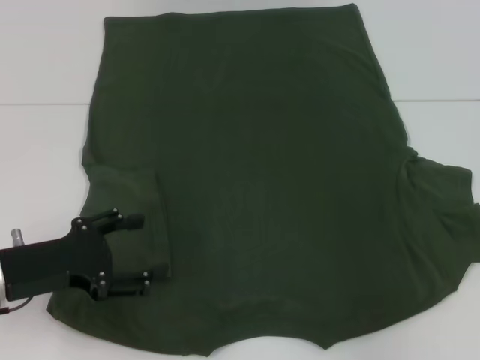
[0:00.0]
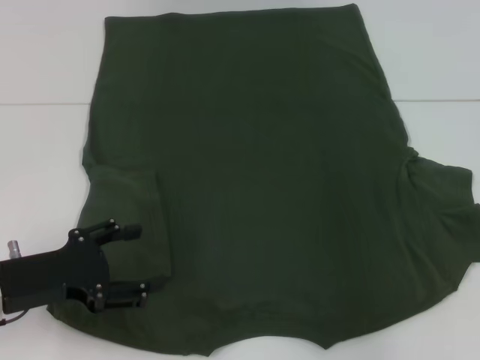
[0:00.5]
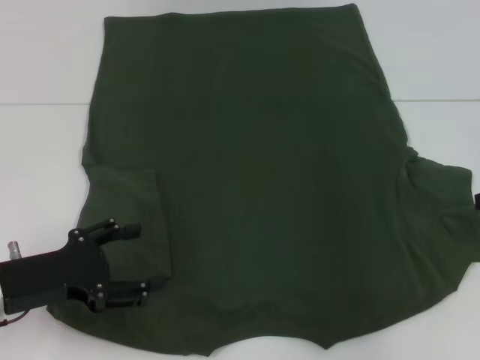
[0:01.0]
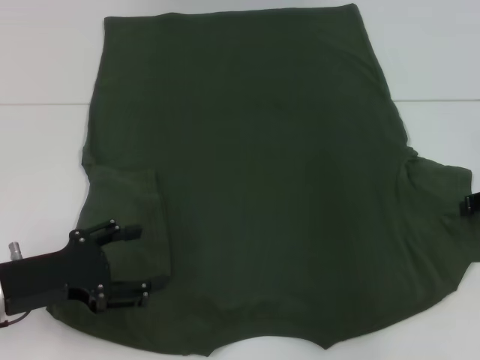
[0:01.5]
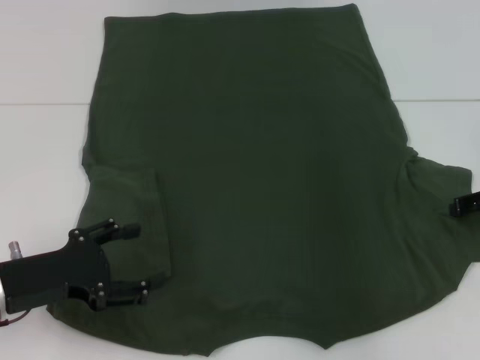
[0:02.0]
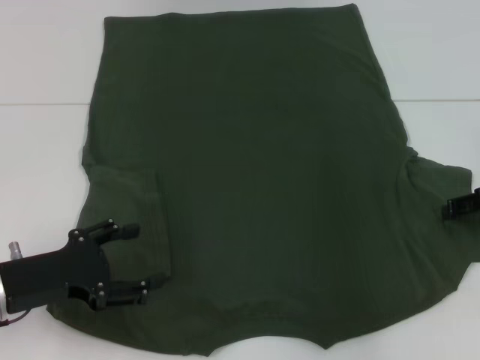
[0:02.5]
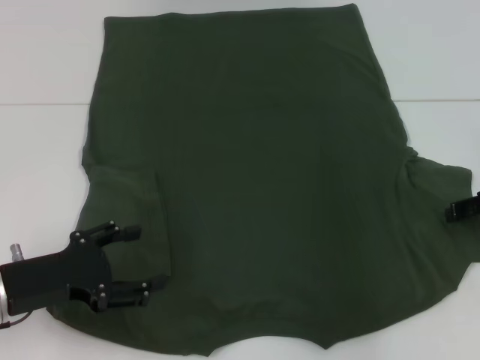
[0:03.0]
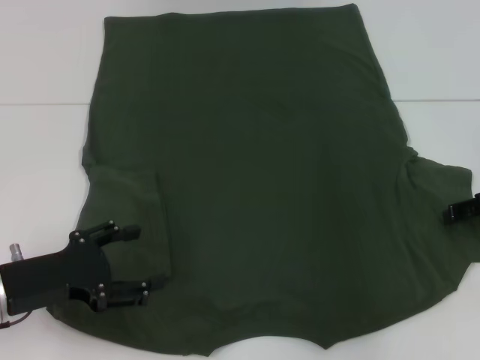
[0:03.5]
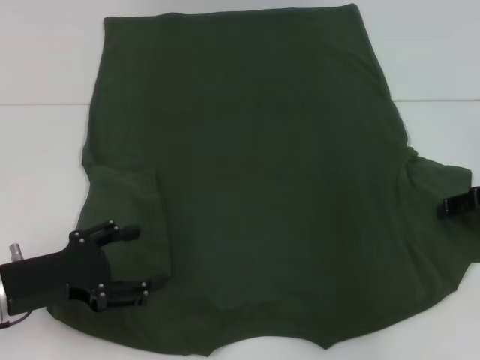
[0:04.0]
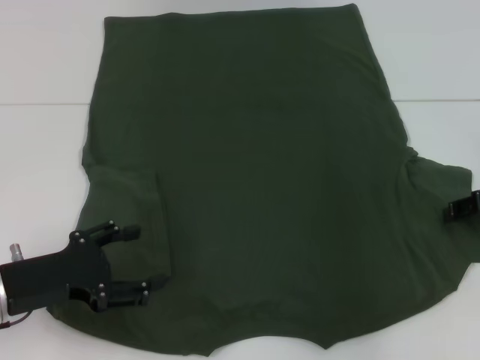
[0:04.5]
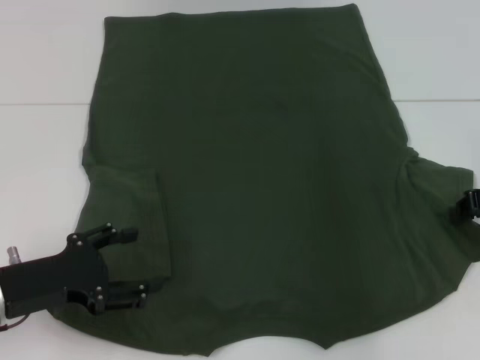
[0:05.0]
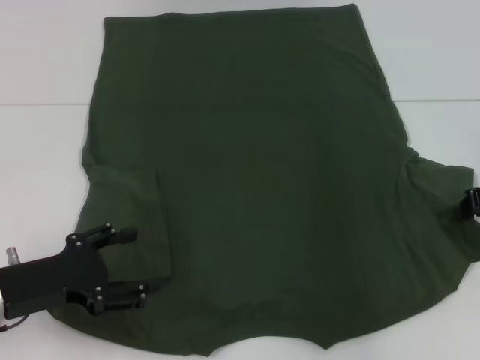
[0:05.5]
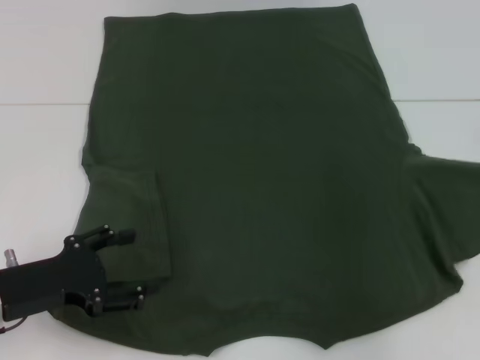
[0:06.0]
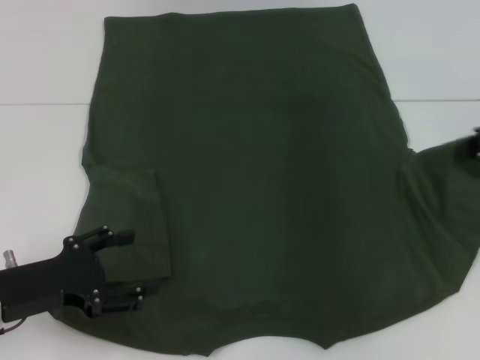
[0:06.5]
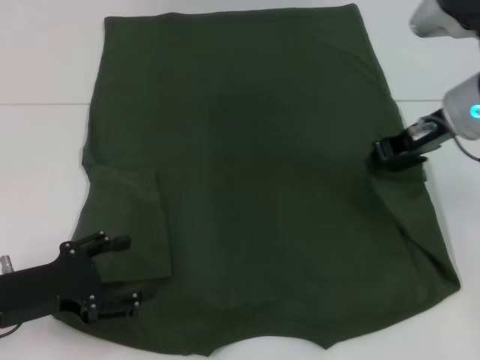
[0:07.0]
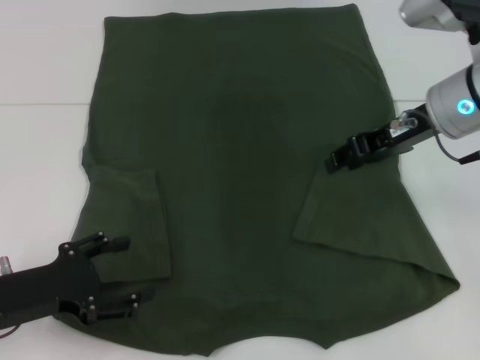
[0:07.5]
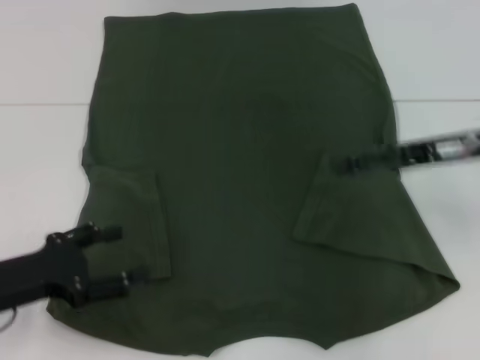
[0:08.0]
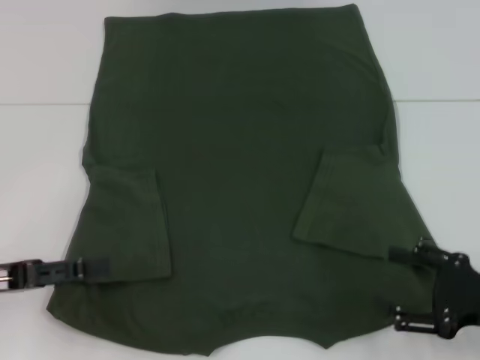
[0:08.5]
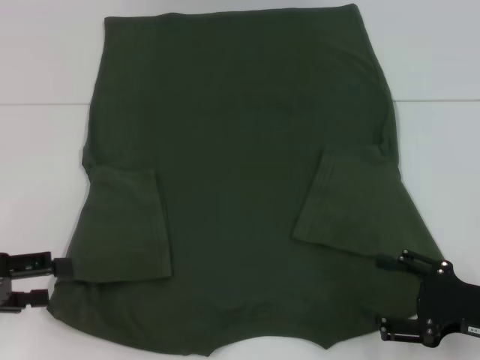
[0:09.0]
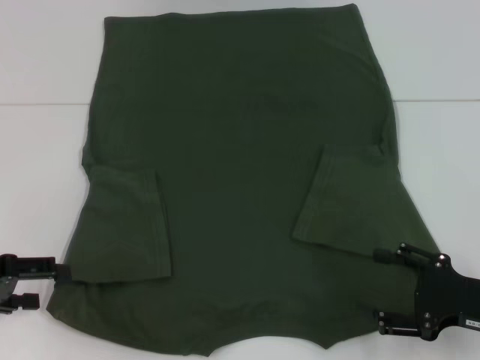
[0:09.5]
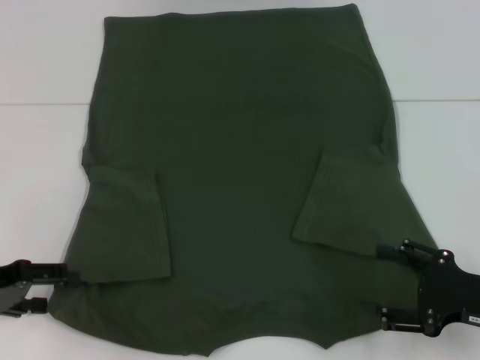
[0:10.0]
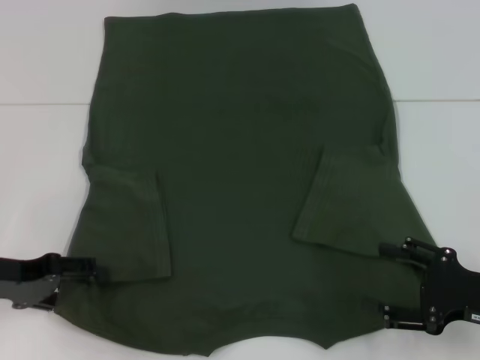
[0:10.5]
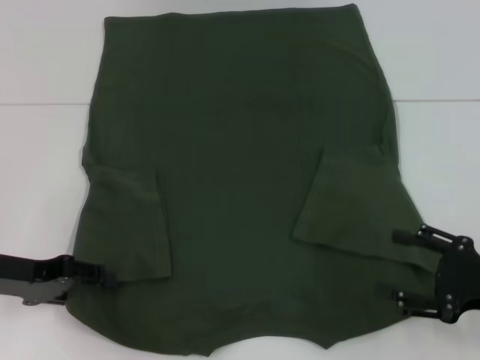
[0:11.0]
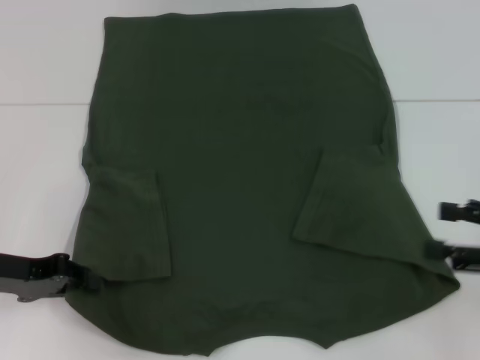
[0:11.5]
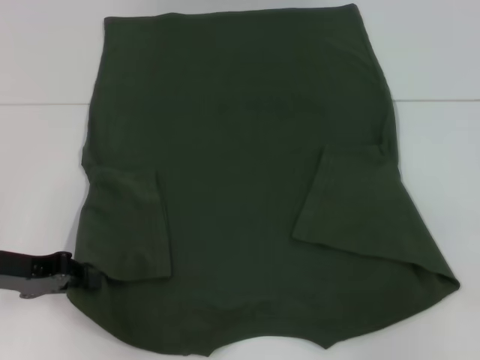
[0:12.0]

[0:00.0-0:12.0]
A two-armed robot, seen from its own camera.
Step, 0:00.0 to 0:07.5: Fold the bottom right sleeve with your right hand.
Step, 0:08.0 to 0:11.5: Grab the bottom left corner with your left hand.
0:04.0 to 0:06.0: The right gripper closes its fingers.
0:06.0 to 0:08.0: The right gripper moves to the left, approximately 10 cm, and opens.
0:08.0 to 0:10.0: The right gripper moves backward and downward, some 15 cm, while the left gripper goes some 5 cm to the left.
0:10.0 to 0:12.0: The right gripper shifts about 15 cm upward, to the right and forward; the left gripper closes its fingers.

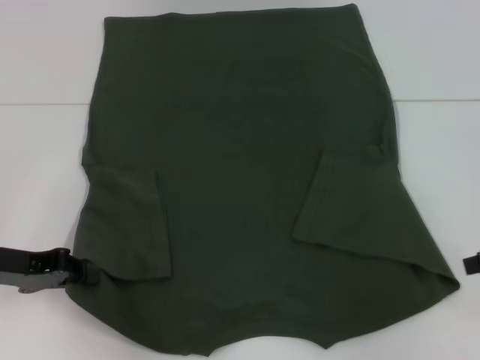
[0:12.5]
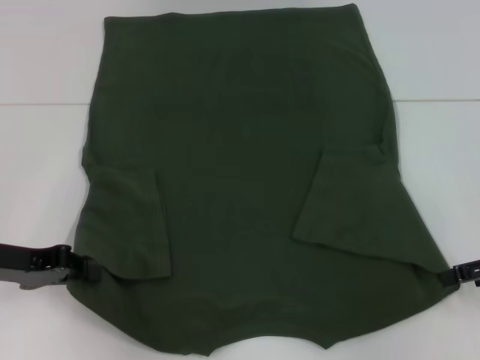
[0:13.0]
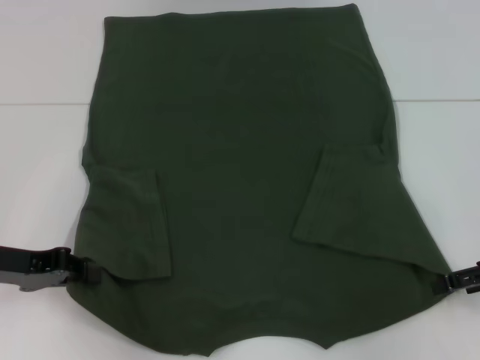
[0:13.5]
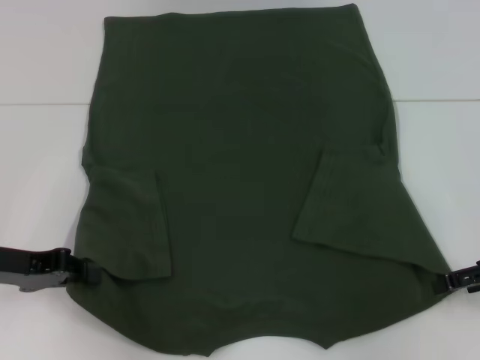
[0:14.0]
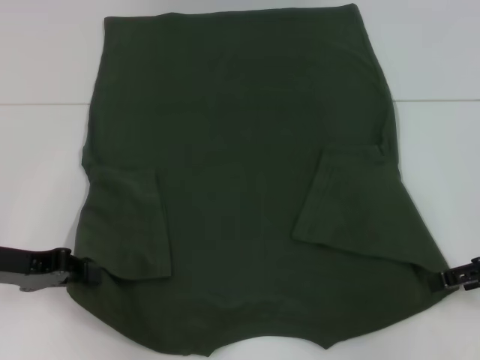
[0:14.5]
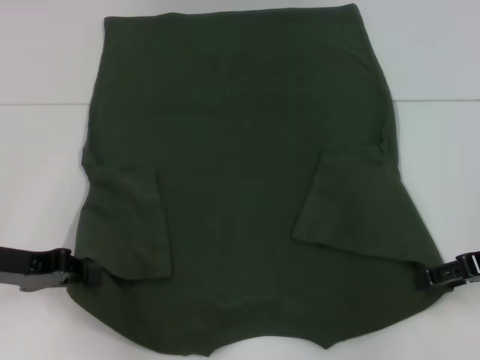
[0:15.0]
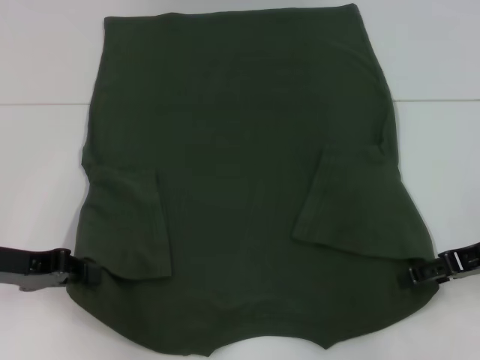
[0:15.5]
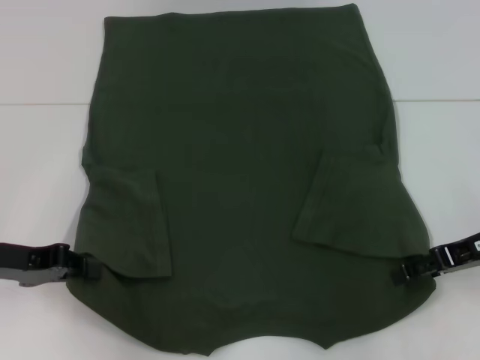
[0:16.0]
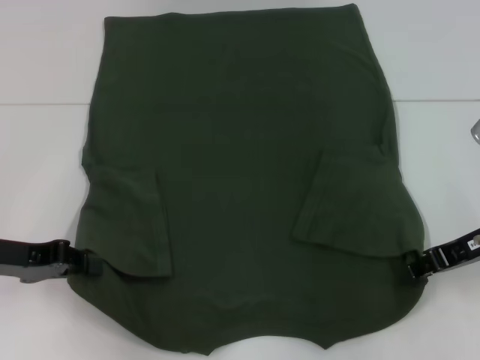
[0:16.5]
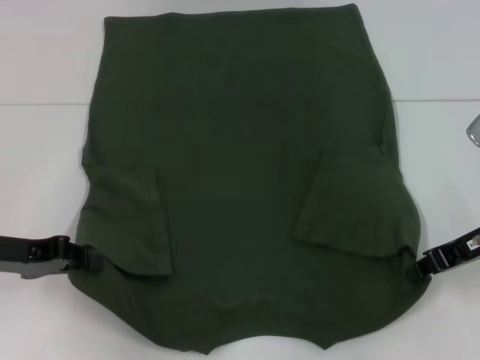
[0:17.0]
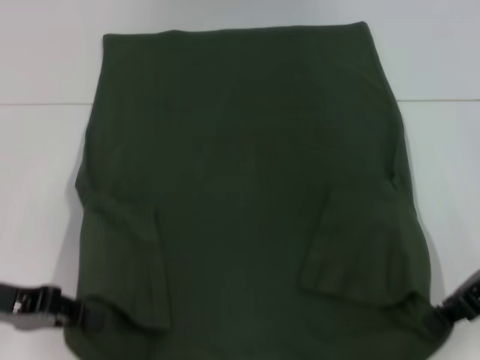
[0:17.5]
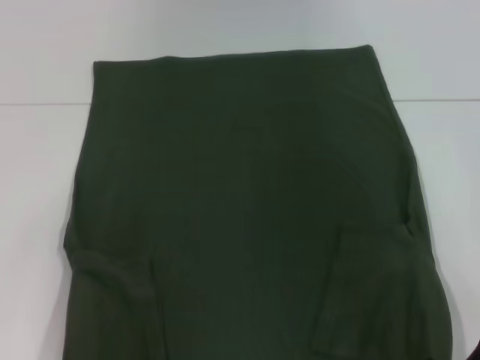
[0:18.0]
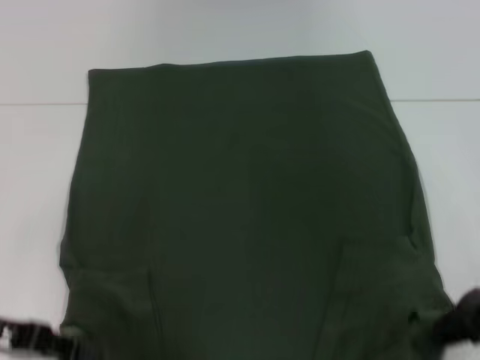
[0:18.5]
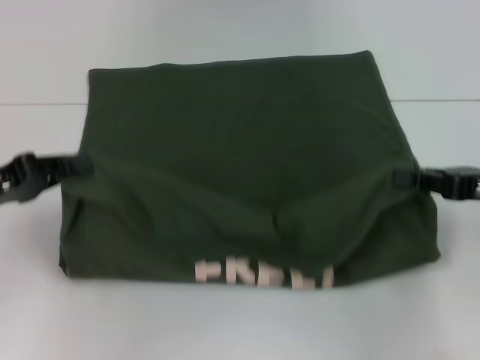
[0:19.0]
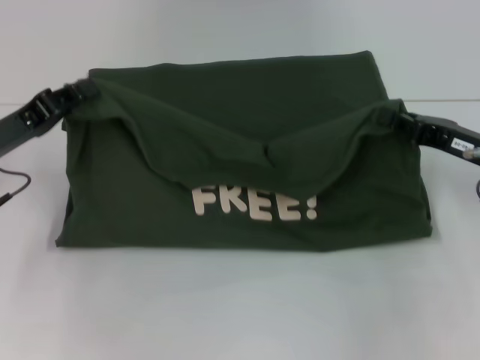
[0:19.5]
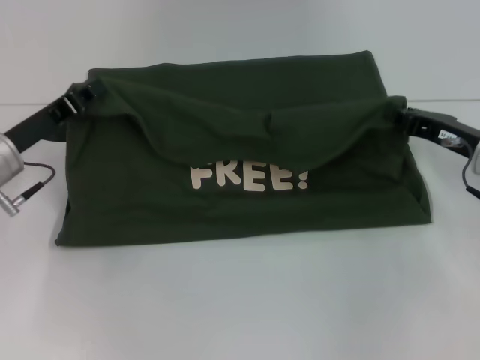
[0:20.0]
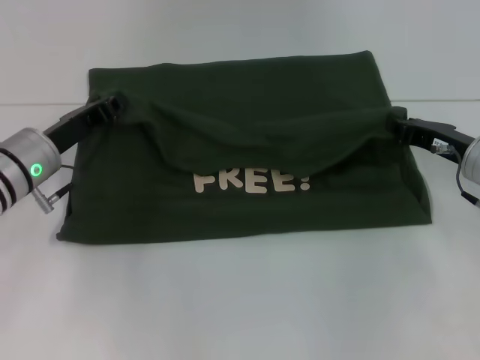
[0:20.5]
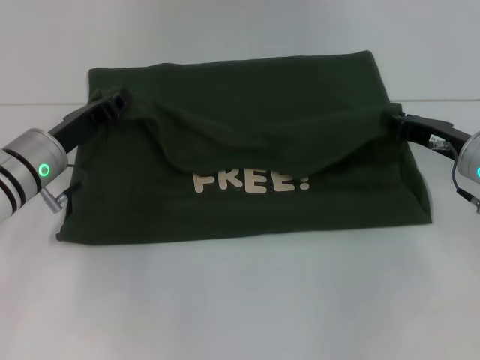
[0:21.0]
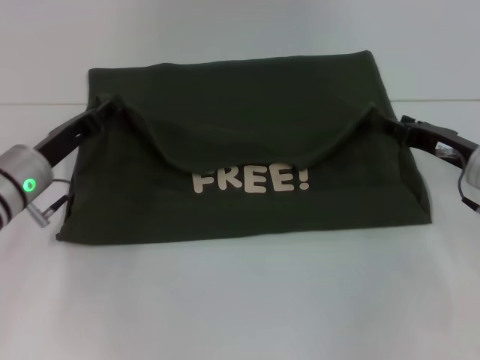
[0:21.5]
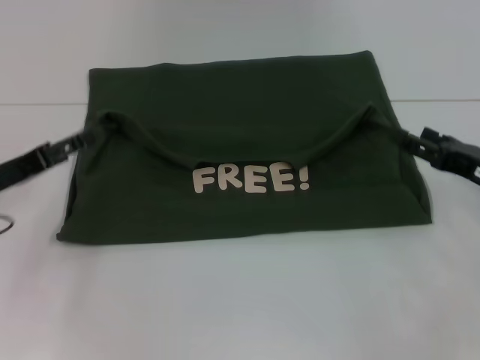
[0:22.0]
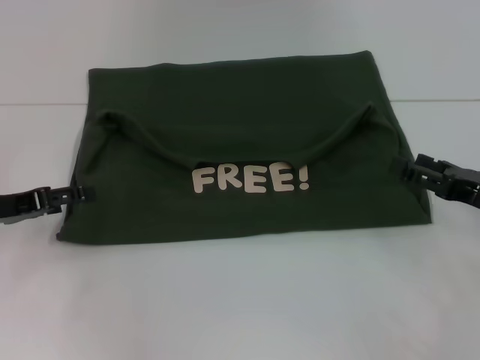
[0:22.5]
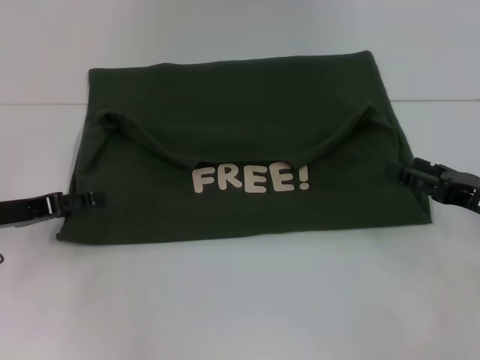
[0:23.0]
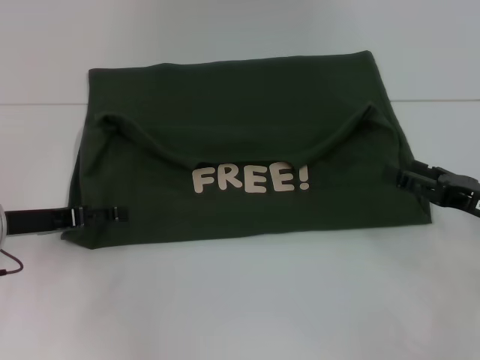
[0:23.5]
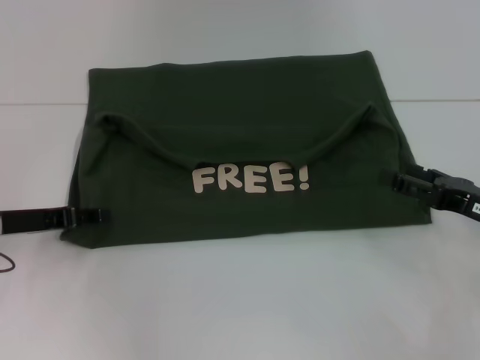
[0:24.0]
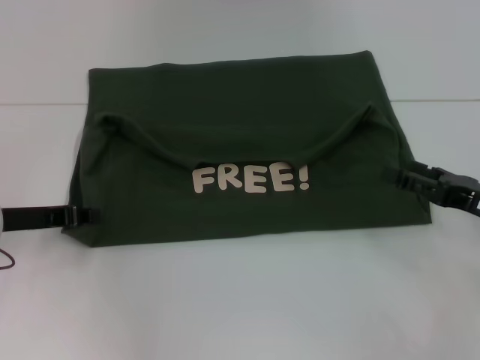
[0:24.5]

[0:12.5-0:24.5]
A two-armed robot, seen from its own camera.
Step, 0:12.5 to 0:16.5: Grab the bottom right corner with your right hand.
Step, 0:17.0 to 0:21.5: Fold the clothes with your left hand.
Step, 0:17.0 to 0:21.5: Fold the clothes with your right hand.
0:14.5 to 0:16.5: The right gripper goes some 5 cm to the left, and closes its fingers.
0:16.5 to 0:18.5: The left gripper heads backward, covering roughly 5 cm. The right gripper closes.
0:18.5 to 0:20.5: The left gripper heads forward and to the right, covering some 15 cm. The right gripper moves forward and downward, about 10 cm.
0:20.5 to 0:22.5: The left gripper moves to the left and backward, approximately 10 cm, and opens up. Meanwhile the right gripper heads backward, covering about 10 cm, and opens its fingers.
0:22.5 to 0:24.5: The left gripper closes.

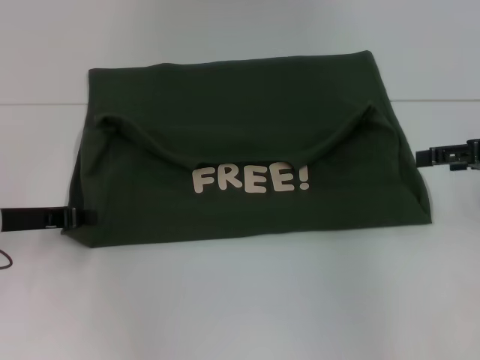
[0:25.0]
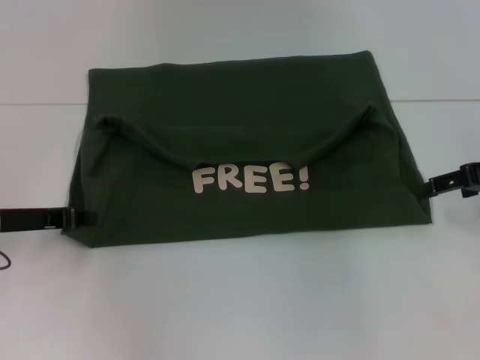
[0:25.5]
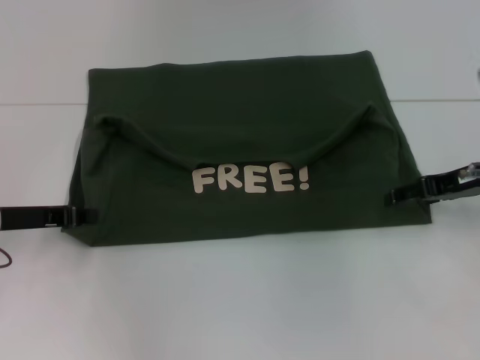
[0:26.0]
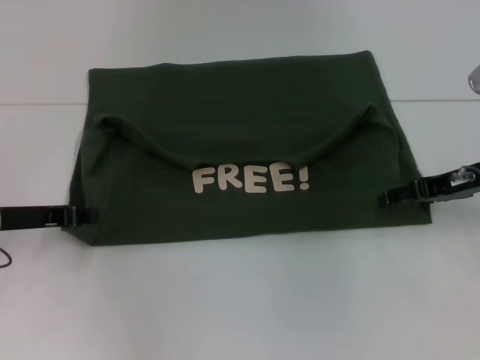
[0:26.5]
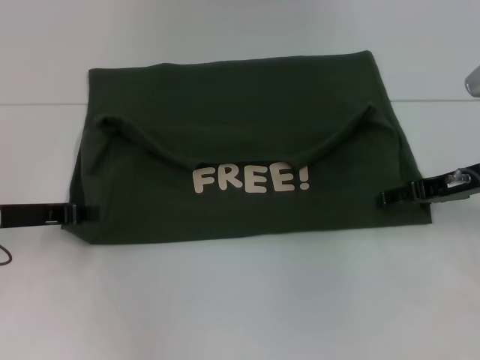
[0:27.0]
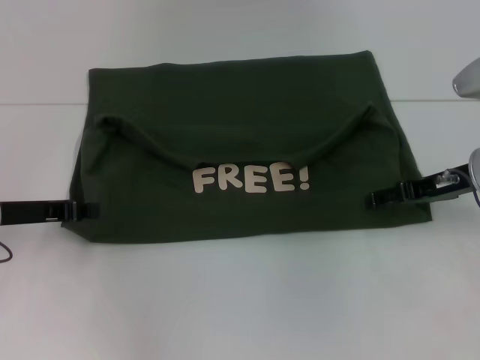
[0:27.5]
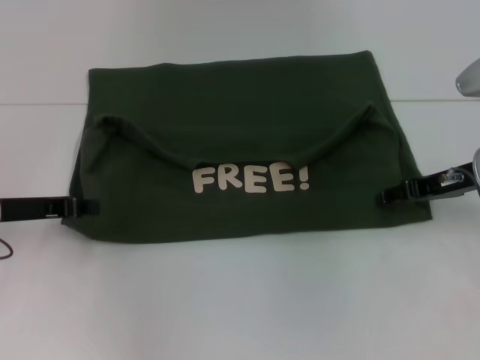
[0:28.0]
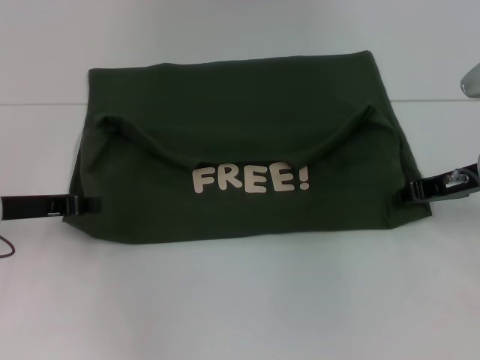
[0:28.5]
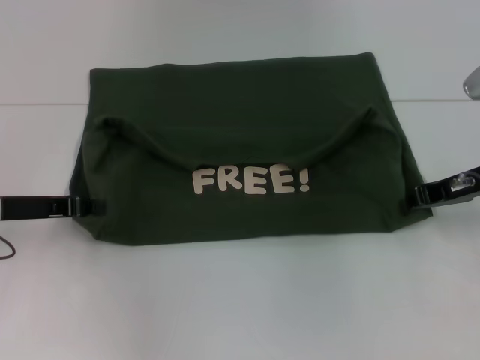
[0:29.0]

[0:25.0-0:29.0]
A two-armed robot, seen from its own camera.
0:25.0 to 0:27.0: The right gripper is displaced downward and to the left by roughly 10 cm.
0:27.0 to 0:29.0: The right gripper closes its fingers.
